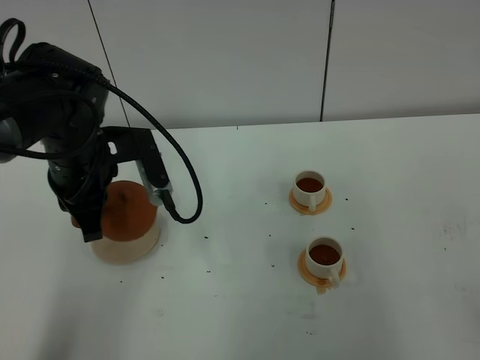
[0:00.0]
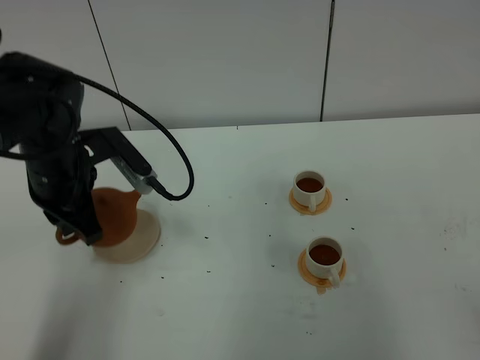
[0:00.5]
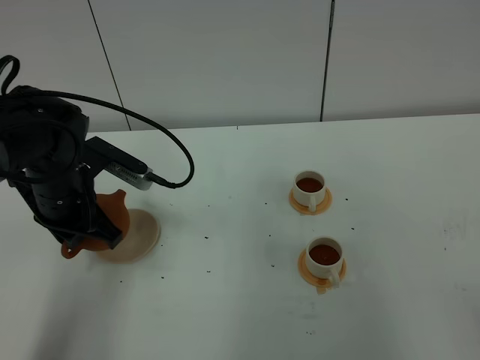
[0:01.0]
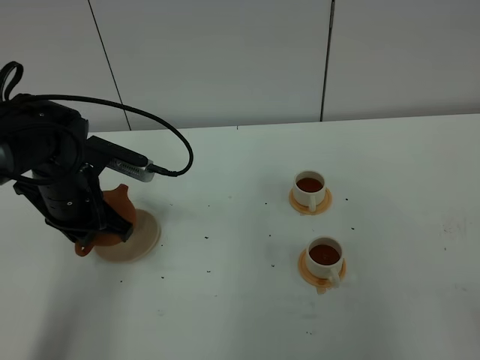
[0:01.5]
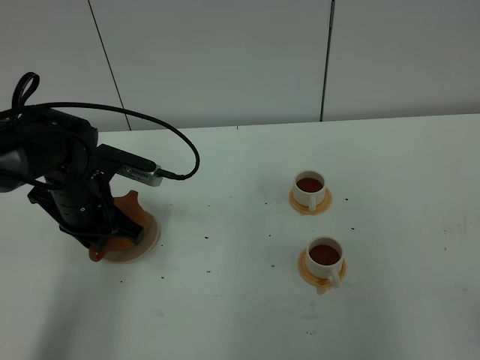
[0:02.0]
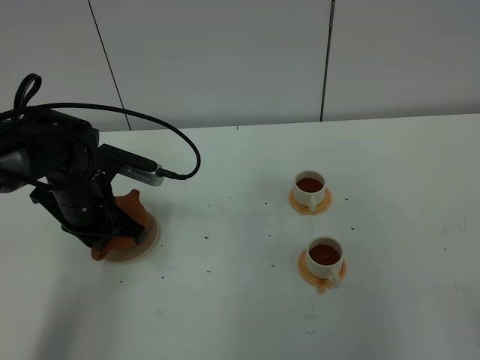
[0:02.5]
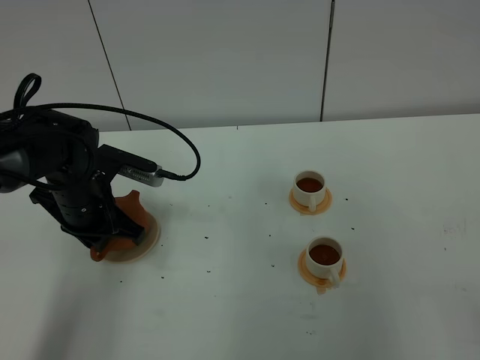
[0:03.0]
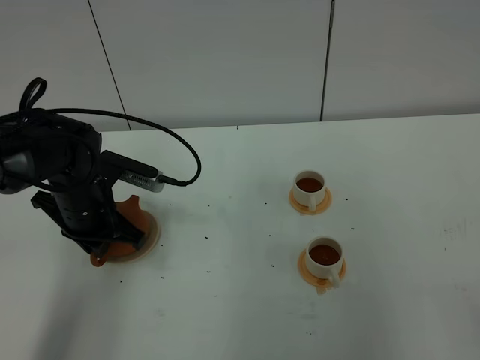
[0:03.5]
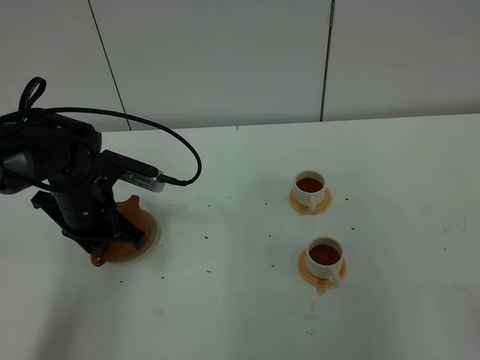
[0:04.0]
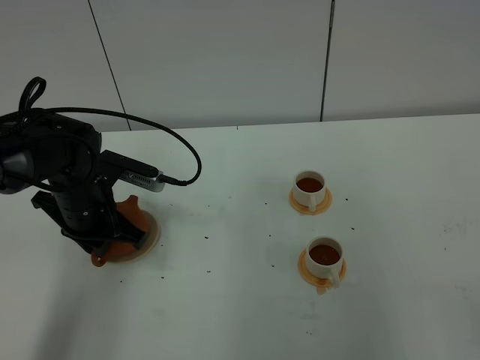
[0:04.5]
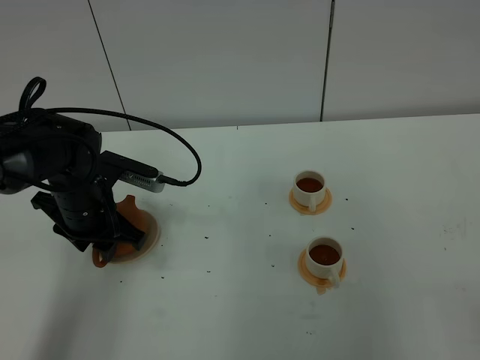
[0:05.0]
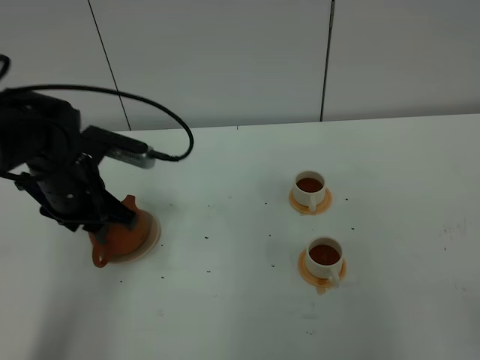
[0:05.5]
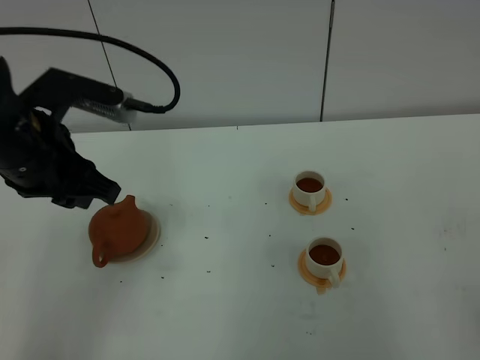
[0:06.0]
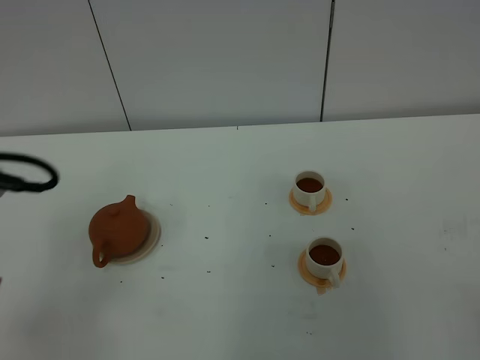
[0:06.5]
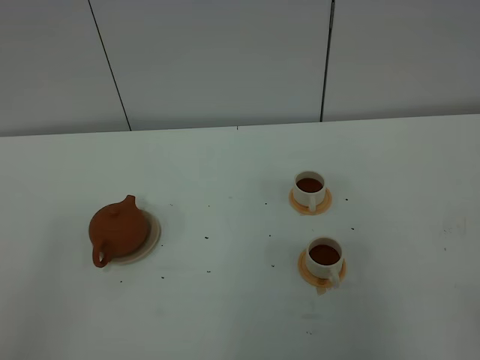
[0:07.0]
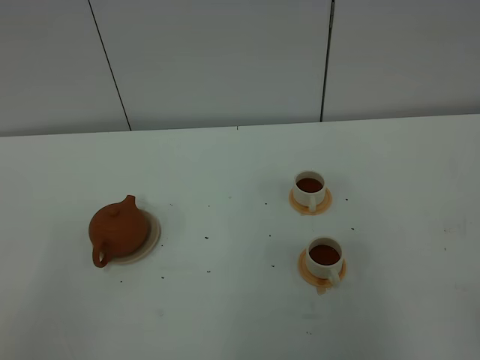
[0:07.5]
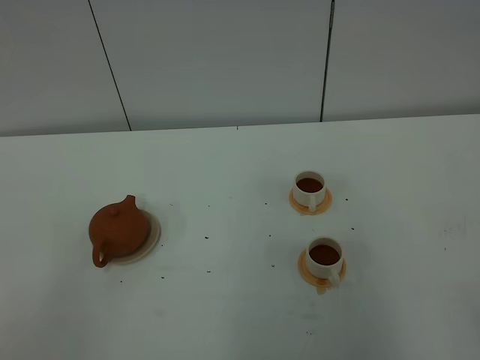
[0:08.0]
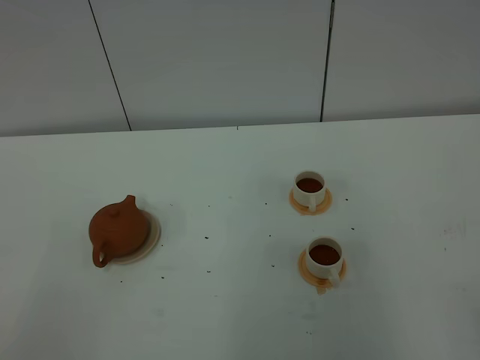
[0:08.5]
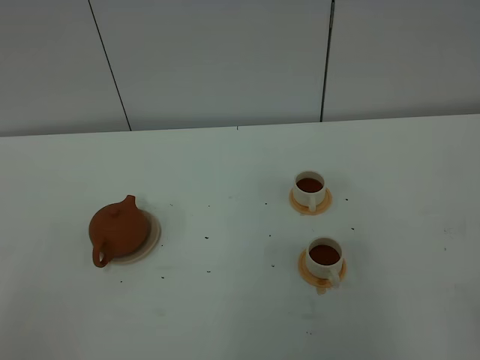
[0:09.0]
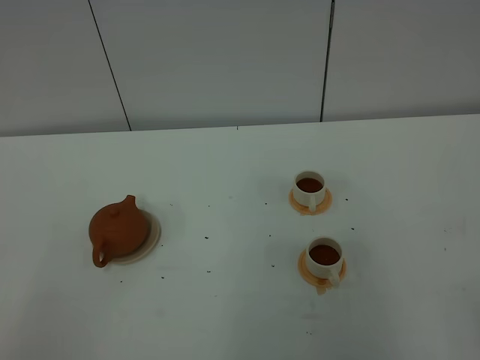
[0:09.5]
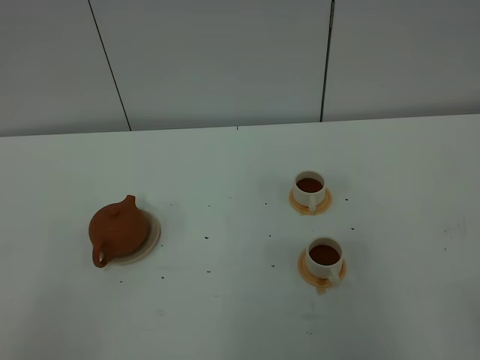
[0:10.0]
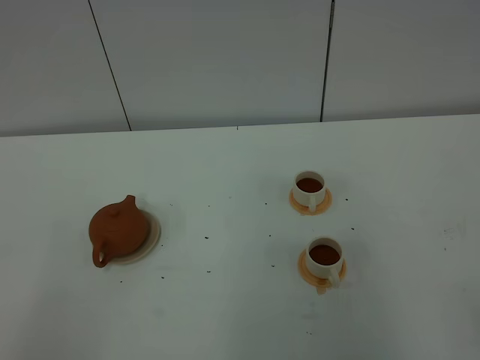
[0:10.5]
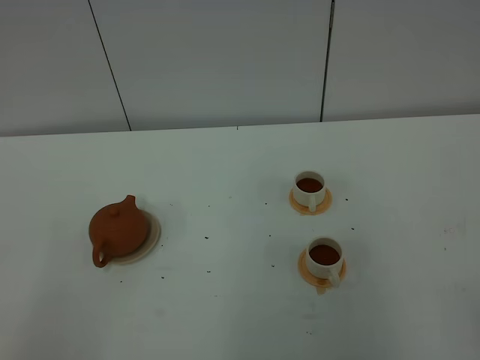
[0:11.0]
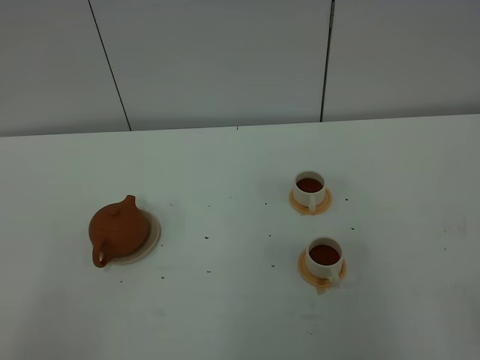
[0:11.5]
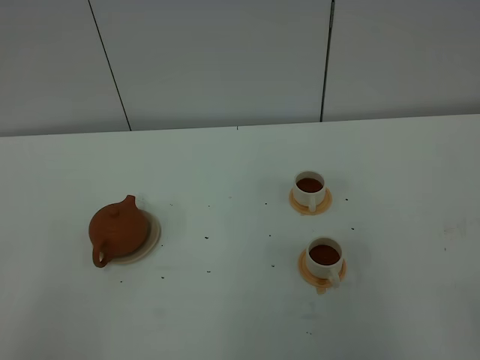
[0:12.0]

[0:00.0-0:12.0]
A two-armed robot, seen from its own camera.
Task of the whole recording: grasp the brown teapot and pour the tea into the two white teacups one by one, put the brown teapot back in its original place.
0:00.0 to 0:02.0: The left gripper moves downward, approximately 10 cm.
0:02.0 to 0:04.0: Both grippers stay about where they are.
0:04.0 to 0:06.0: The left gripper is displaced upward and backward by about 20 cm, and opens.
0:06.0 to 0:08.0: The left gripper heads backward, covering about 30 cm, and closes.
0:10.0 to 0:12.0: Both grippers stay about where they are.

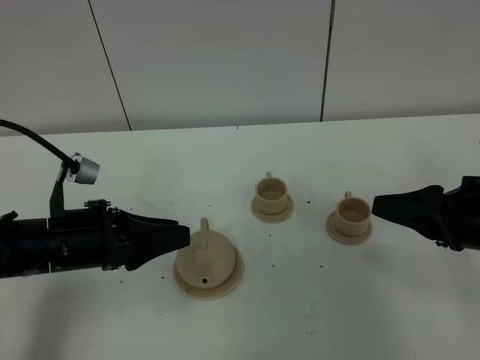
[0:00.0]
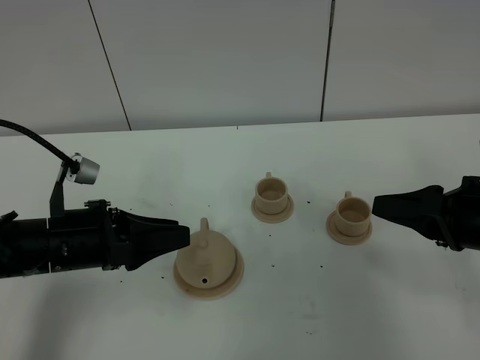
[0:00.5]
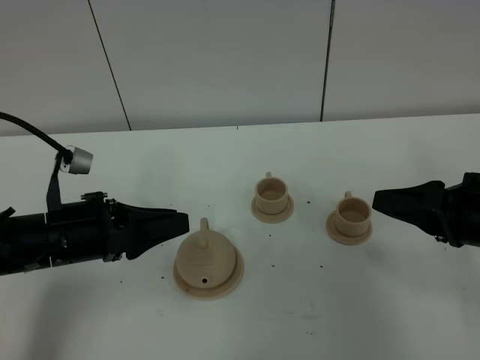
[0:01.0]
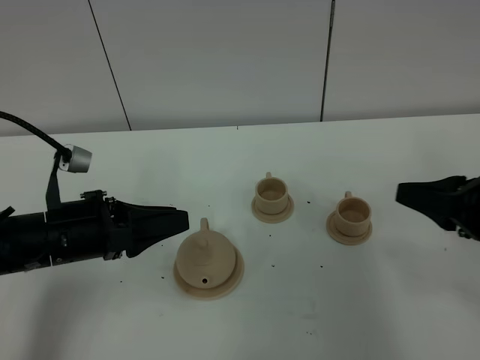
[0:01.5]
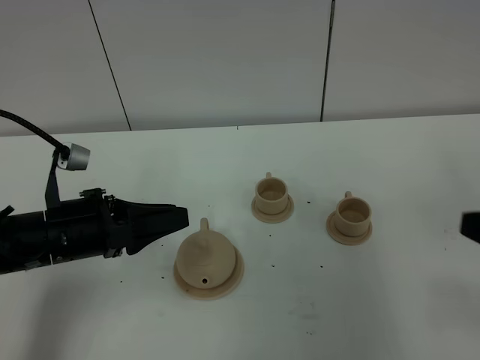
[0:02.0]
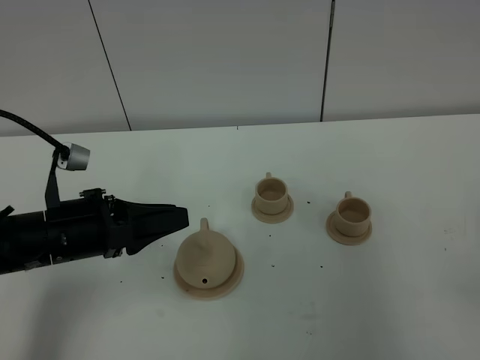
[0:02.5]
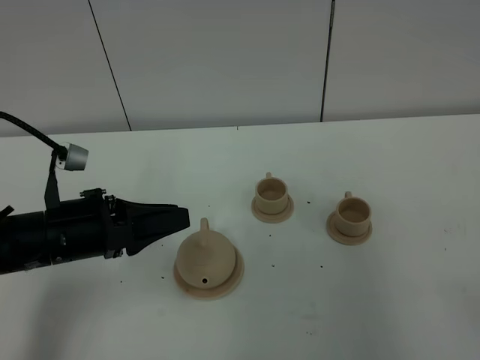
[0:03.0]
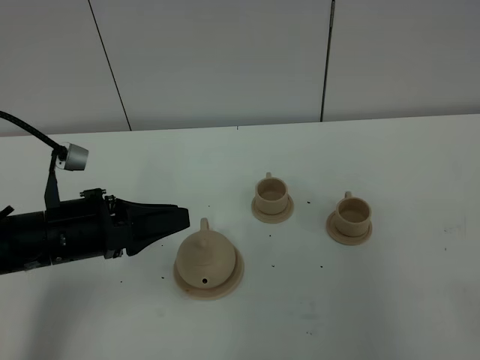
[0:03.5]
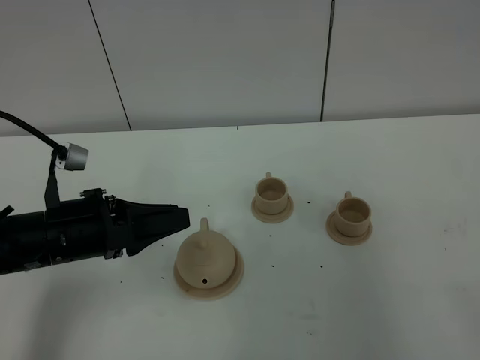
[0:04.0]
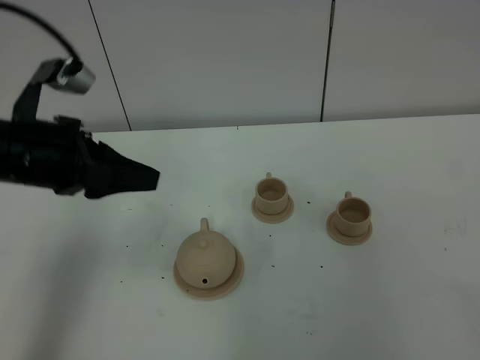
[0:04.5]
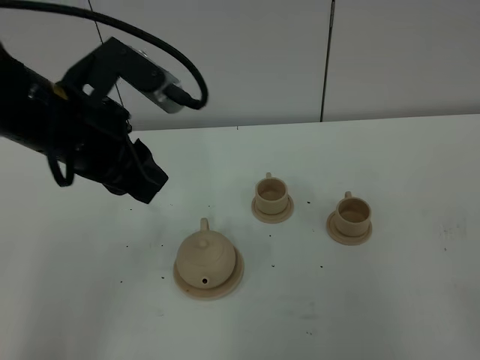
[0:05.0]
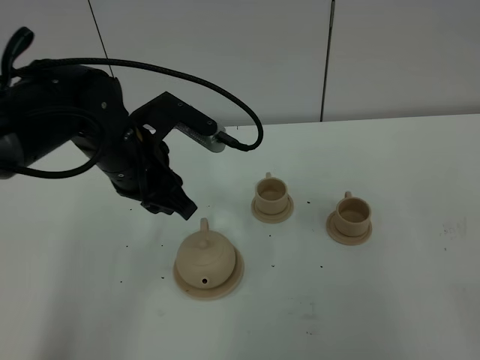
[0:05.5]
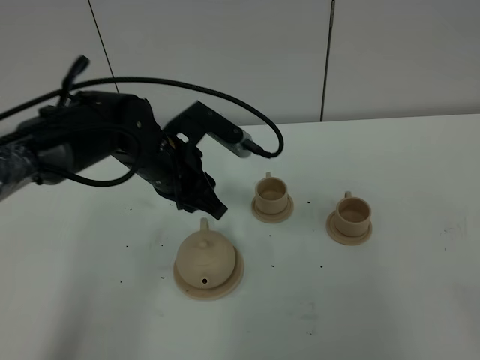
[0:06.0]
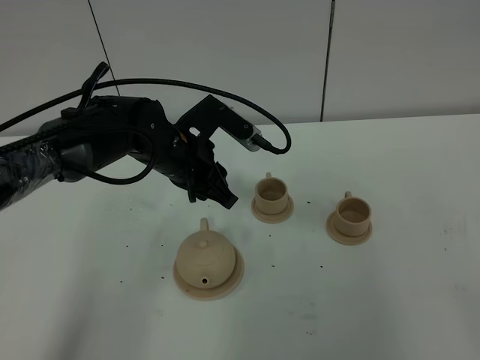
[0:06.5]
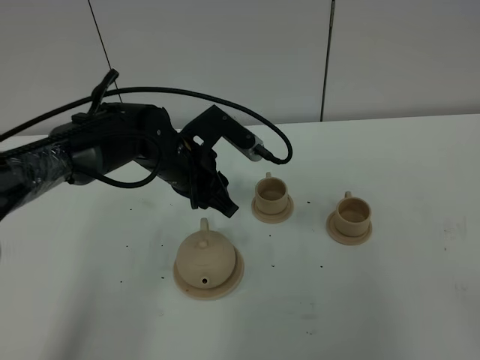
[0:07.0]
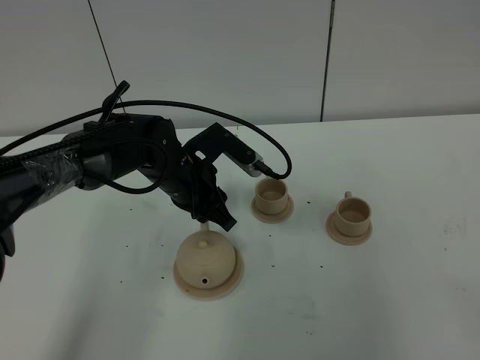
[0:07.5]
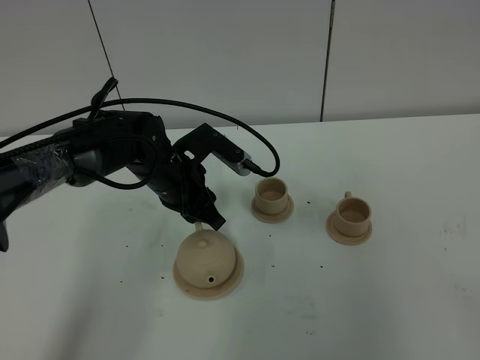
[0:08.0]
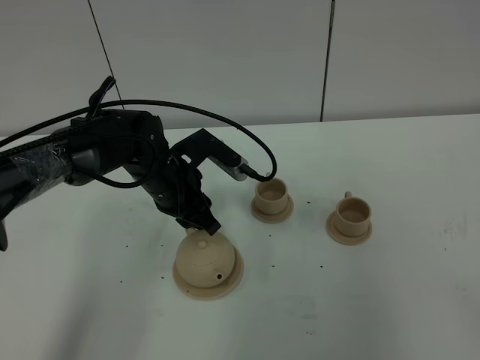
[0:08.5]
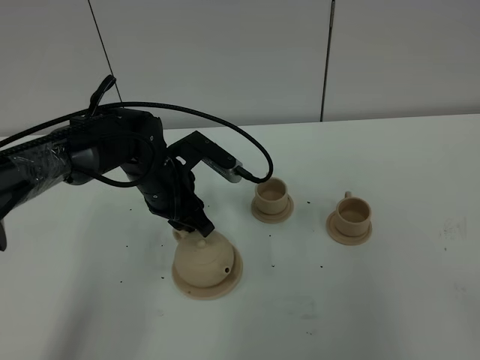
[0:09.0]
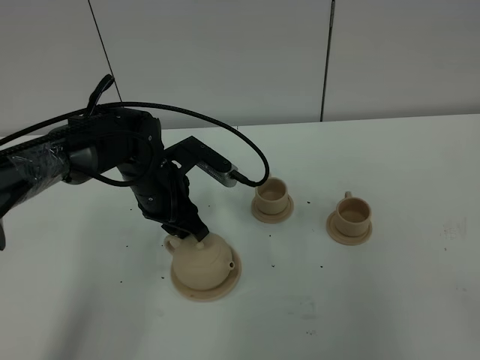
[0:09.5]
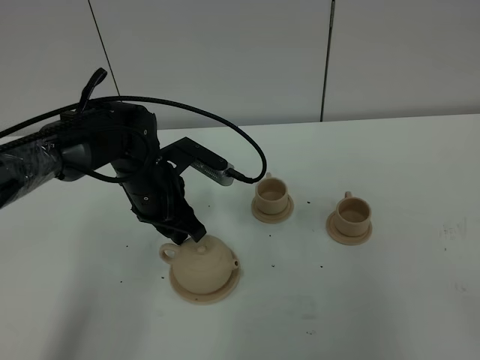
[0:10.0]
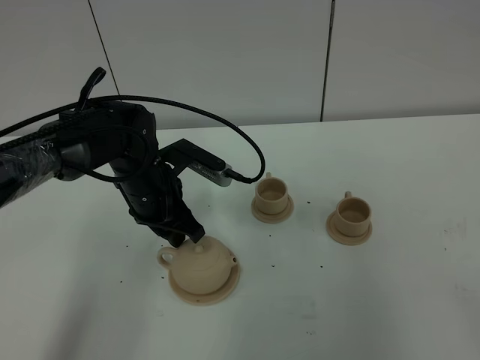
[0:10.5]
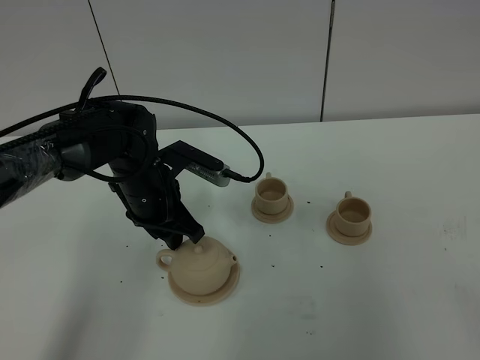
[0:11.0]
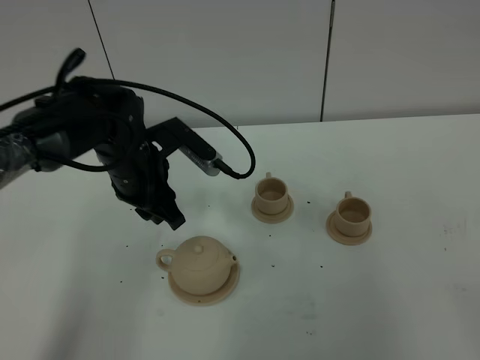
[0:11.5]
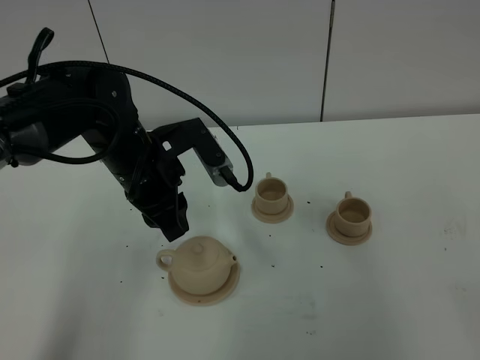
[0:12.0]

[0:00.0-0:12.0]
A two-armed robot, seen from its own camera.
Task of the whole recording: grasp the brown teapot and pour the tea into the two brown teacups one by one, put the brown teapot back in its original place.
0:00.0 to 0:02.0: The right gripper heads backward and upward, covering about 10 cm.
0:04.0 to 0:06.0: The left gripper moves forward and to the right, approximately 15 cm, and moves approximately 15 cm upward and comes back.
0:06.0 to 0:08.0: The left gripper ends up some 5 cm from where it was.
0:08.0 to 0:10.0: The grippers stay close to where they were, moving slightly.
0:10.0 to 0:12.0: The left gripper goes some 5 cm upward.

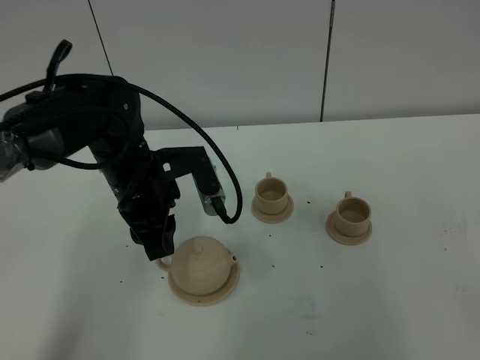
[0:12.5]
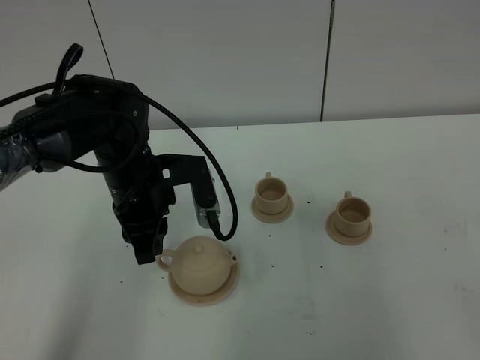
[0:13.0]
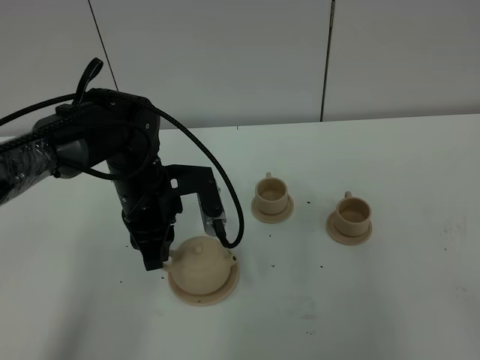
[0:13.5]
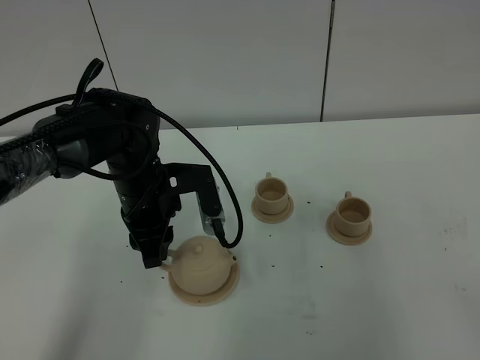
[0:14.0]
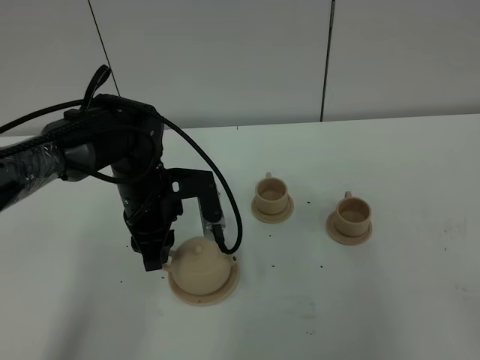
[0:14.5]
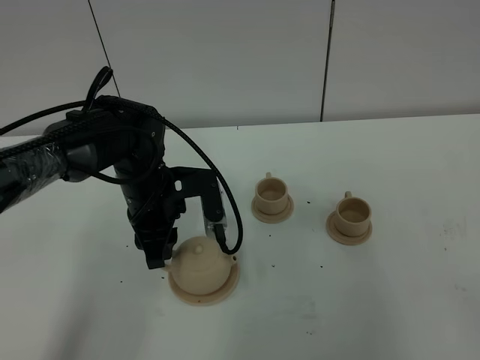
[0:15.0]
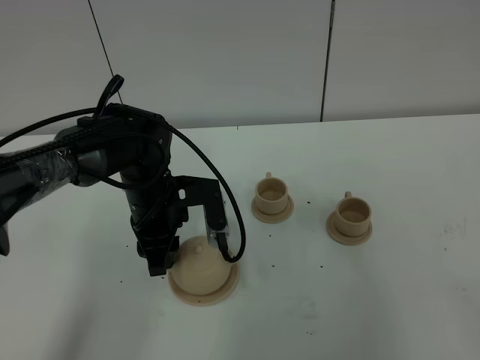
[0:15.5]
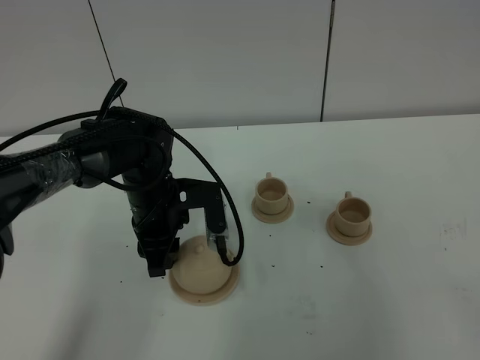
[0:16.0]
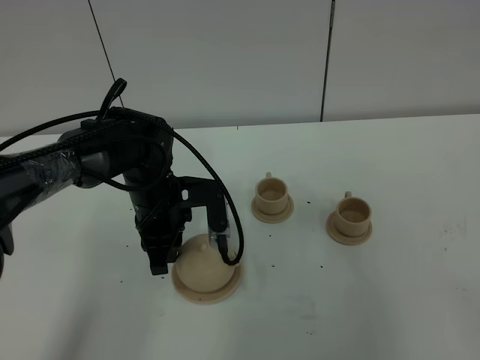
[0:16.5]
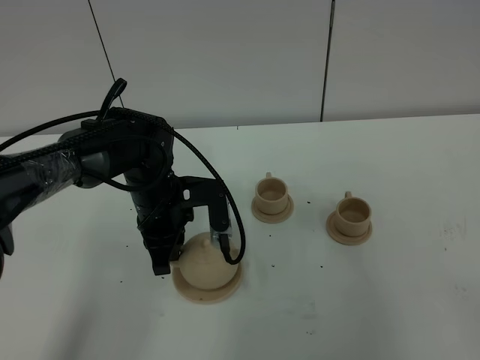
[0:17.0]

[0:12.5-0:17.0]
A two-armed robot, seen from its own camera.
Task of the whole recording: grasp the brown teapot and pour the tea into the two brown teacups one by one, put the brown teapot back in its original place.
0:12.5 to 0:14.5: The grippers move only a little.
0:14.5 to 0:17.0: The left gripper closes.
